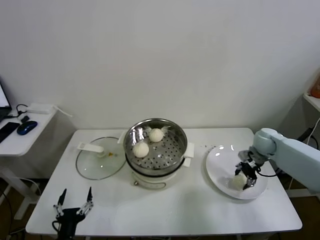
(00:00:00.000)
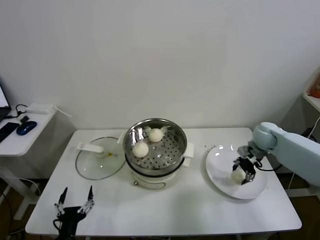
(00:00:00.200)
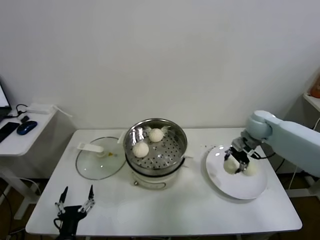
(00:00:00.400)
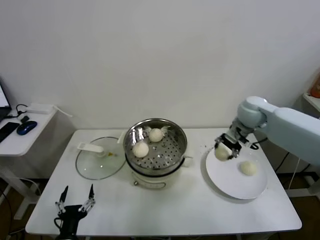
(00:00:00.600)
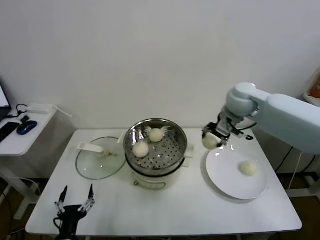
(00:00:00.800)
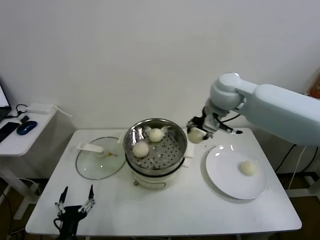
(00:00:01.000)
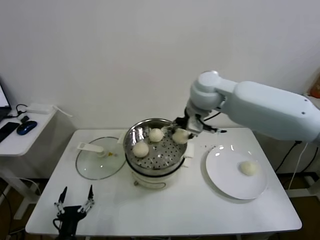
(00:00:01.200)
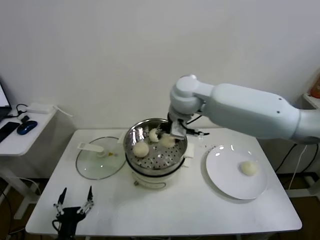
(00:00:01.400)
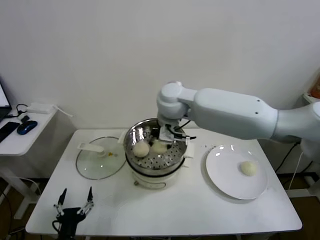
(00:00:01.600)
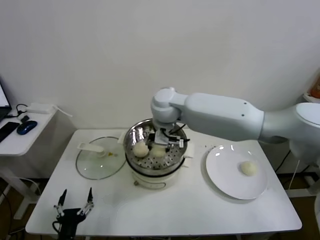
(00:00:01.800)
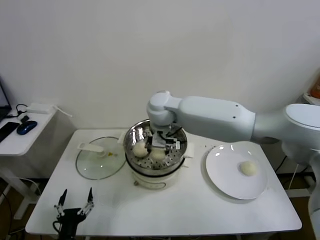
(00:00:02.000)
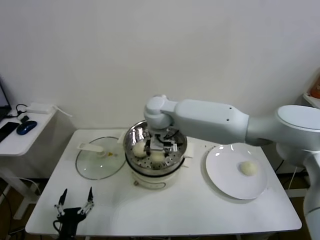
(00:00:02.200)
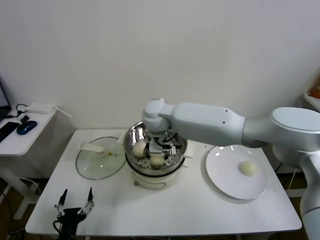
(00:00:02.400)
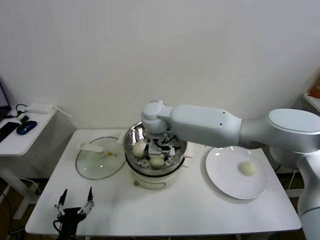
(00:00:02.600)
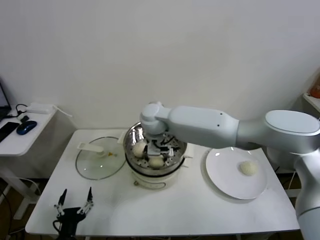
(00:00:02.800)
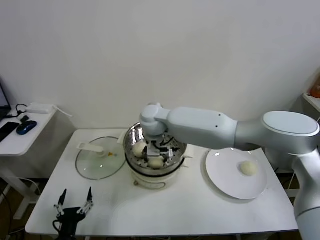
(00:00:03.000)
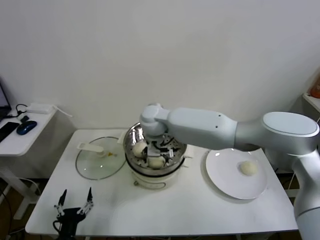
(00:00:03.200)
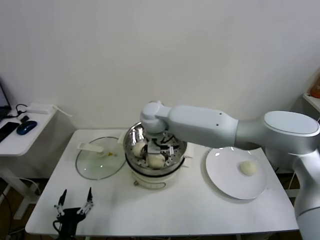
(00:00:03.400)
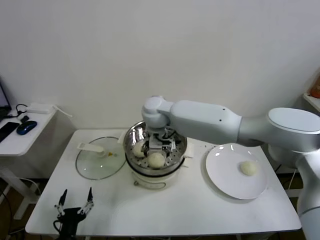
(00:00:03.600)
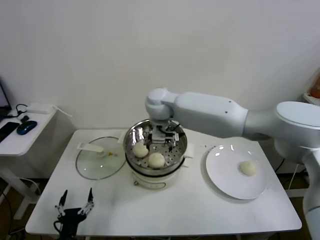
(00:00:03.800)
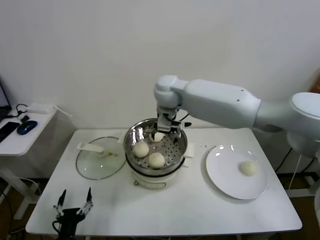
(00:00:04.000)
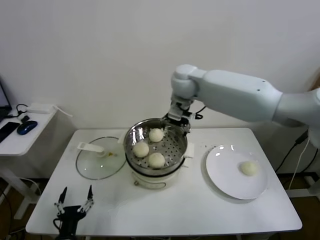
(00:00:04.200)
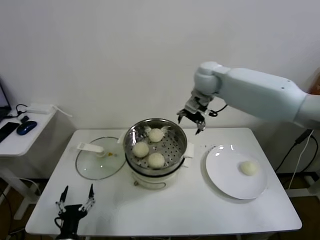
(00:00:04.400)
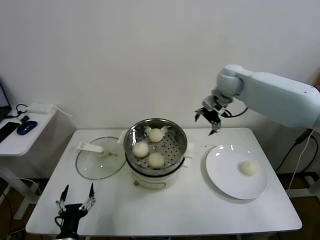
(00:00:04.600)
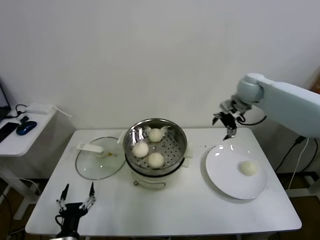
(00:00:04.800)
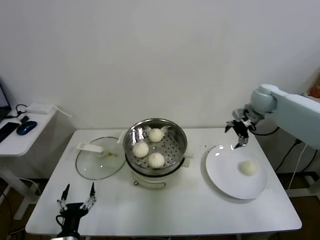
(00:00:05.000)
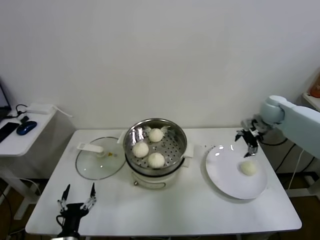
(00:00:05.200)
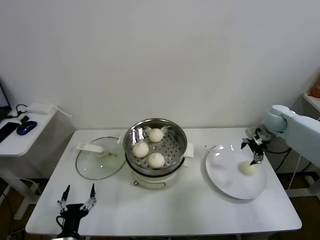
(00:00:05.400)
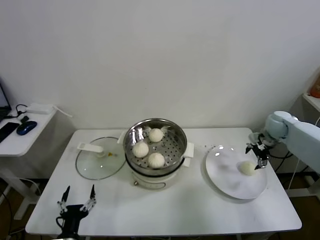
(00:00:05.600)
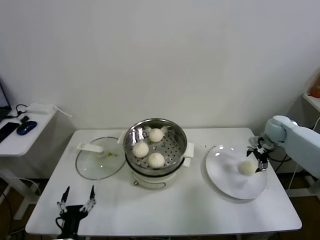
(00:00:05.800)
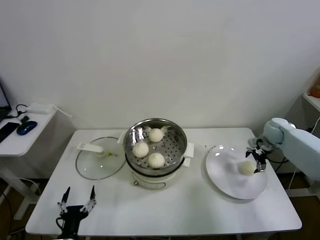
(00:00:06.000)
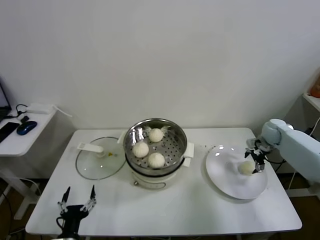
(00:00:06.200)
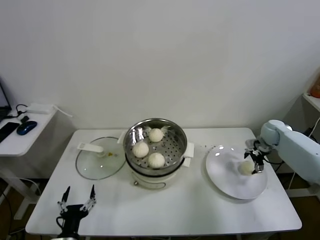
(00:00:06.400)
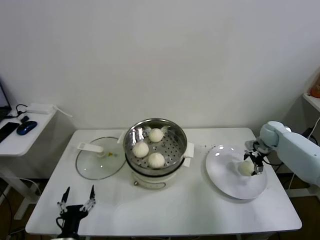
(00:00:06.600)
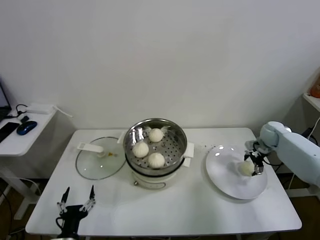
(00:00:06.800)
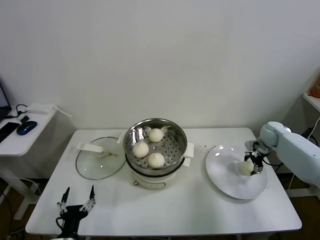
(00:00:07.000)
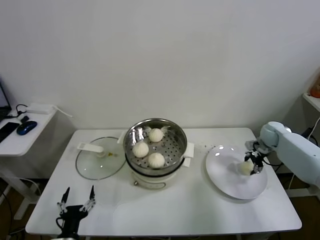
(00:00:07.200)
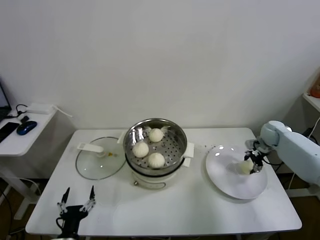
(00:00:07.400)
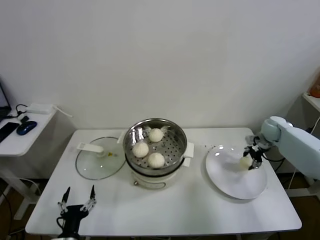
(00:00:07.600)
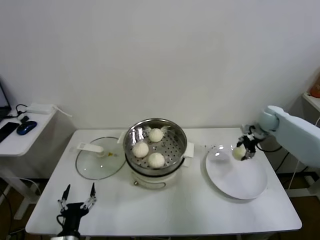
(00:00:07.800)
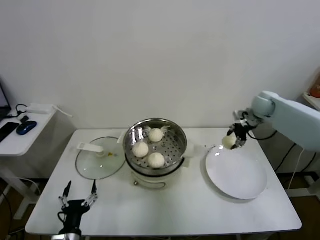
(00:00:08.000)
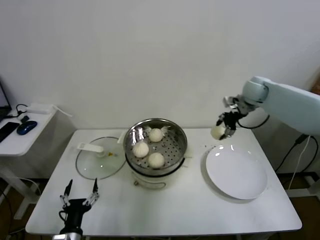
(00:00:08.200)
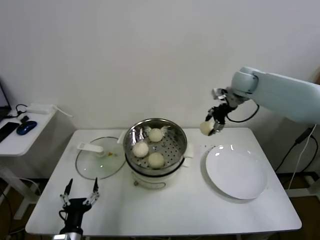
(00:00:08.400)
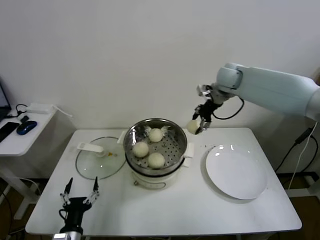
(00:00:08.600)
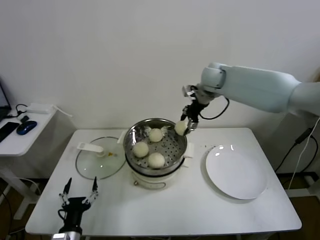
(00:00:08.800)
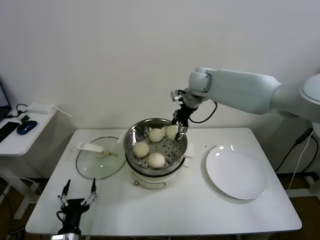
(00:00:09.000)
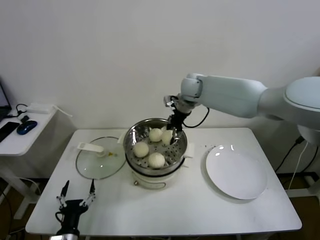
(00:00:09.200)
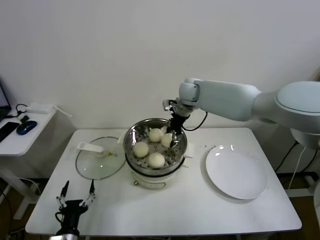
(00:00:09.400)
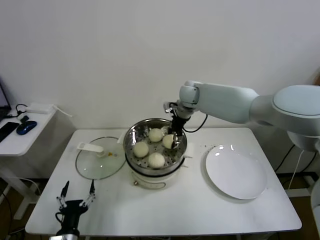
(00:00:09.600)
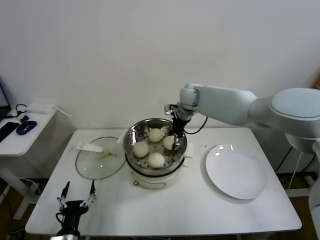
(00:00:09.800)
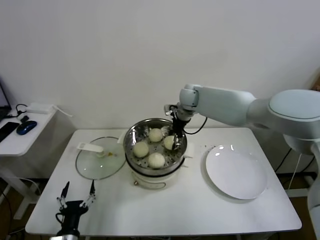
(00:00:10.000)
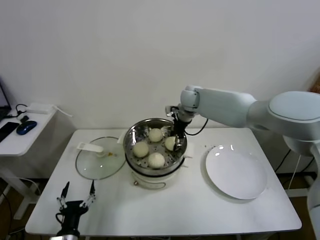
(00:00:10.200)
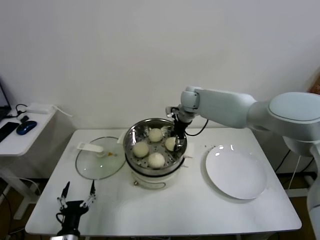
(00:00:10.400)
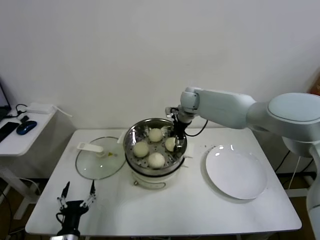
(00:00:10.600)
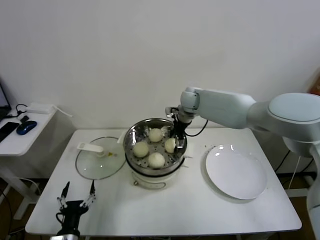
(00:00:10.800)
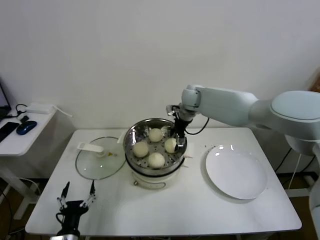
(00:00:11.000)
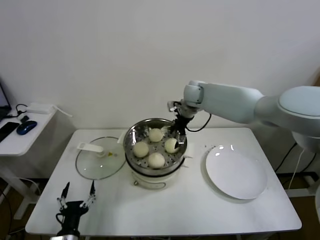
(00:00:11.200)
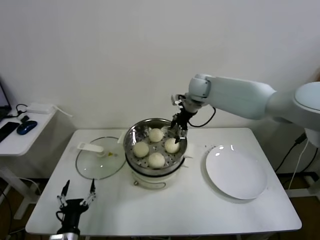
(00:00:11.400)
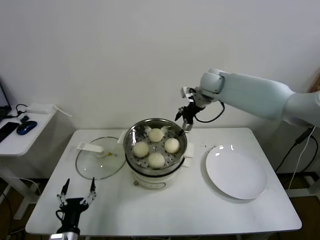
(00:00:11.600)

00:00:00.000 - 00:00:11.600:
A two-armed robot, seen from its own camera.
Task of the whole recording: take steamed baozi put them in steamer.
Step, 00:00:00.000 - 00:00:03.400: Place the baozi on the steamer with right gripper.
Step, 00:00:03.600 - 00:00:07.000: Grasp the baozi in the plate with right gripper.
Step, 00:00:07.200 - 00:00:11.200: Place the baozi on the steamer with right gripper.
00:00:00.000 - 00:00:01.400: The right gripper goes about 40 cm to the left and upward.
00:00:01.400 - 00:00:02.800: The right gripper goes about 15 cm downward and to the left.
00:00:02.800 - 00:00:04.400: The right gripper shifts some 20 cm to the right, upward and forward, and opens.
00:00:04.400 - 00:00:05.800: The right gripper travels to the right and downward by about 35 cm.
00:00:05.800 - 00:00:07.200: The right gripper closes.
00:00:07.200 - 00:00:08.800: The right gripper shifts approximately 35 cm to the left and upward.
00:00:08.800 - 00:00:10.200: The right gripper is displaced downward and to the left by about 10 cm.
00:00:10.200 - 00:00:11.600: The right gripper shifts about 10 cm upward and to the right, and opens.

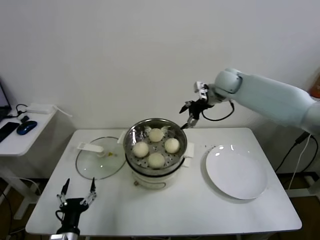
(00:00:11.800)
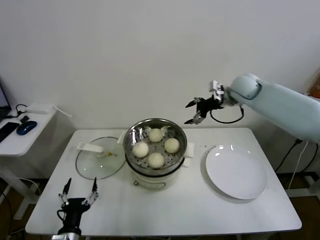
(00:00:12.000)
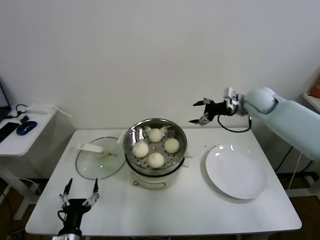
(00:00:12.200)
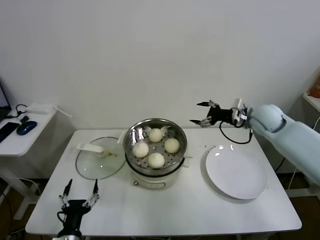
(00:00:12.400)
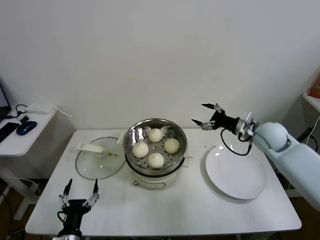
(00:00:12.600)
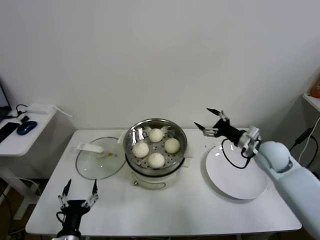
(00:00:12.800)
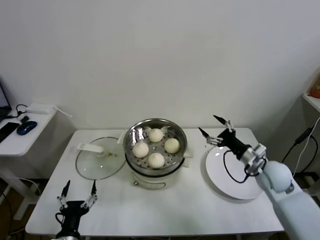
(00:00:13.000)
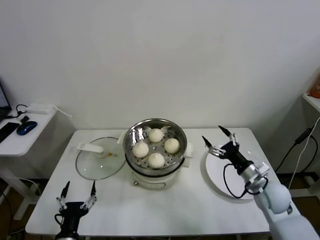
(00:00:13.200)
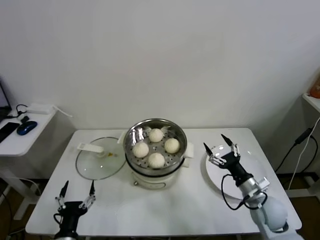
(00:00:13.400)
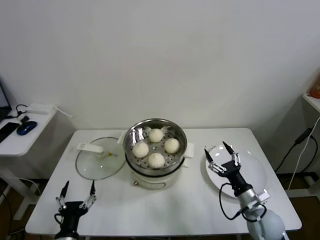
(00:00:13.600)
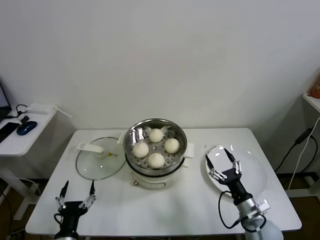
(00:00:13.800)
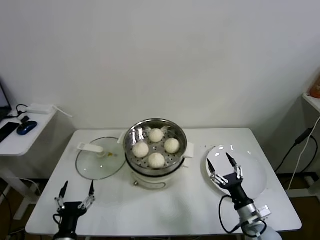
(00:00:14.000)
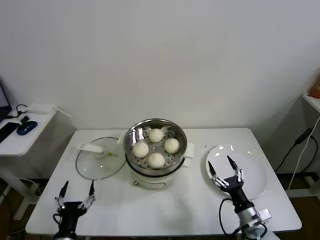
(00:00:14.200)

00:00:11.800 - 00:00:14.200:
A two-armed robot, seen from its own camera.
Task of the whole recording: take steamed baozi put them in steamer.
00:00:11.800 - 00:00:13.000: The right gripper travels backward, downward and to the right by about 35 cm.
00:00:13.000 - 00:00:14.200: The right gripper moves backward and downward, approximately 20 cm.
